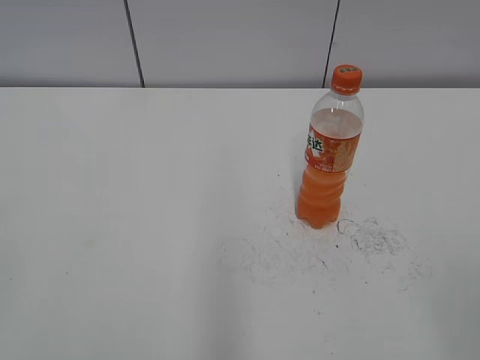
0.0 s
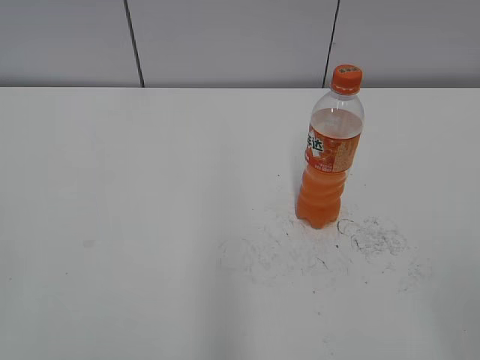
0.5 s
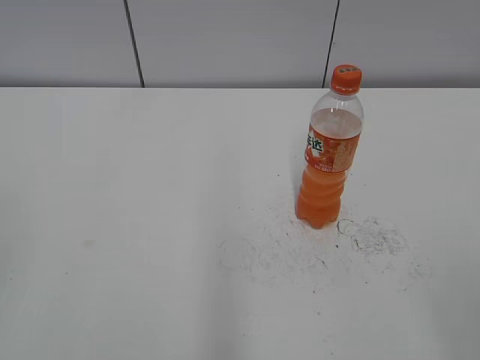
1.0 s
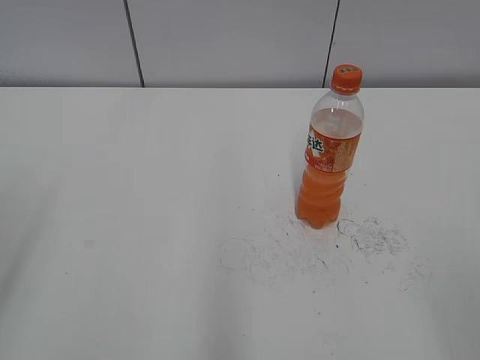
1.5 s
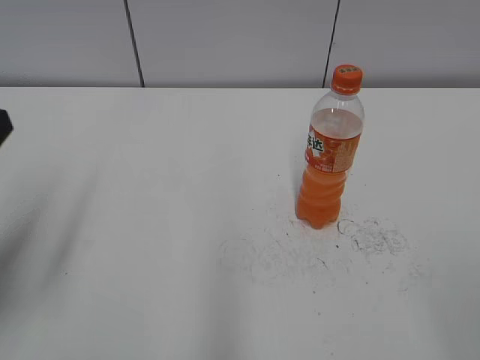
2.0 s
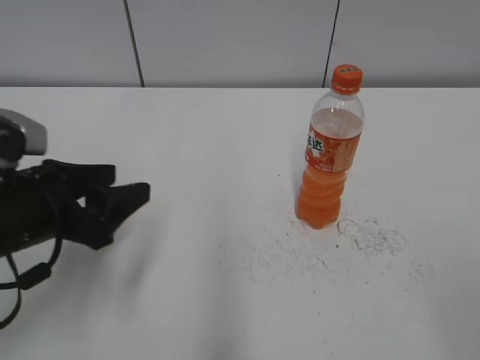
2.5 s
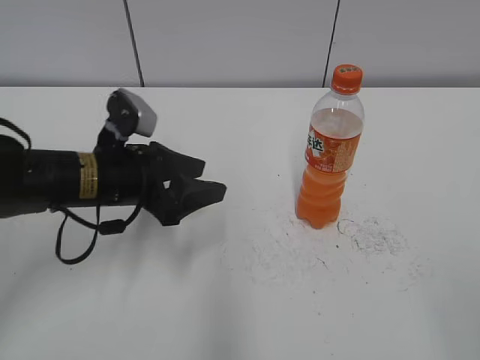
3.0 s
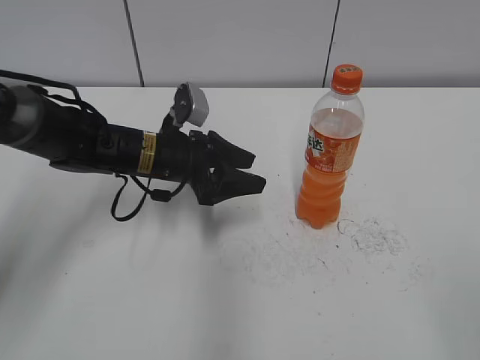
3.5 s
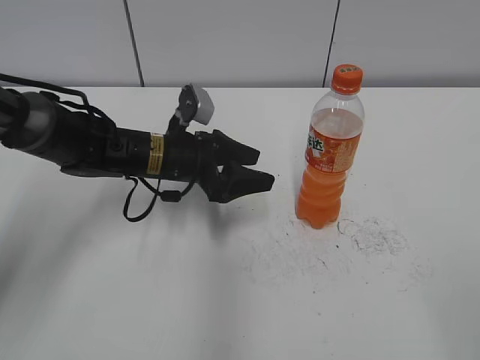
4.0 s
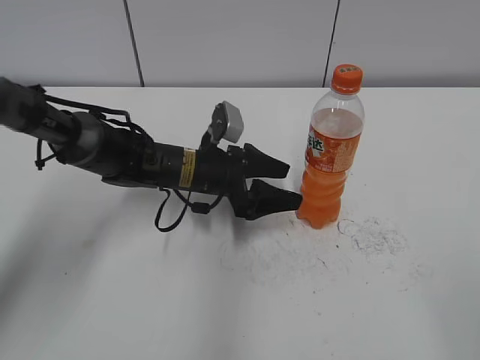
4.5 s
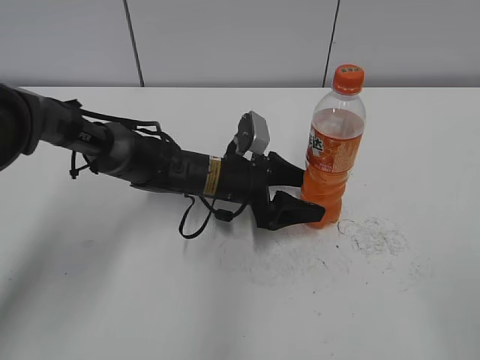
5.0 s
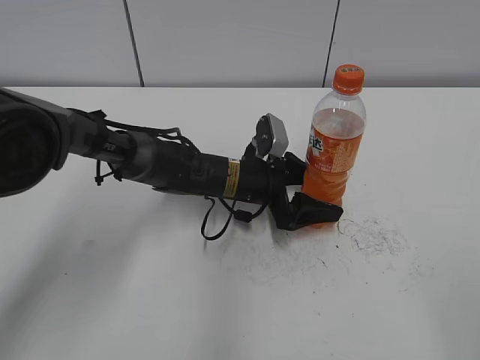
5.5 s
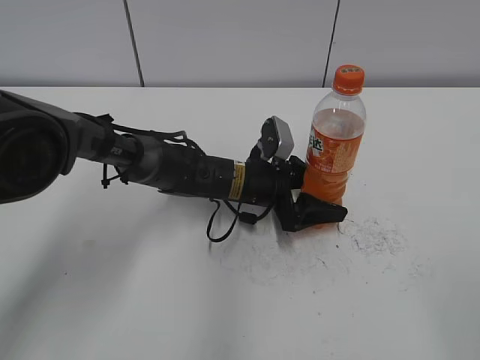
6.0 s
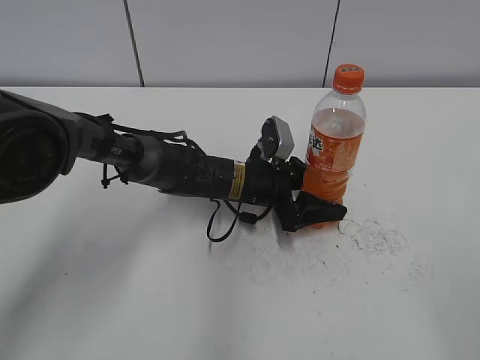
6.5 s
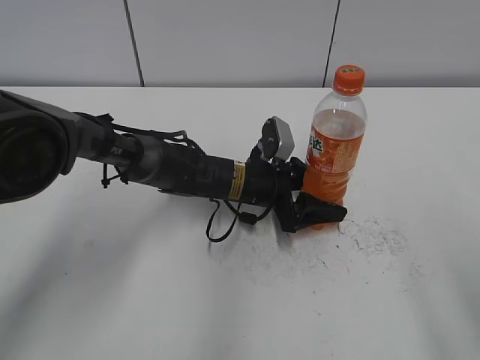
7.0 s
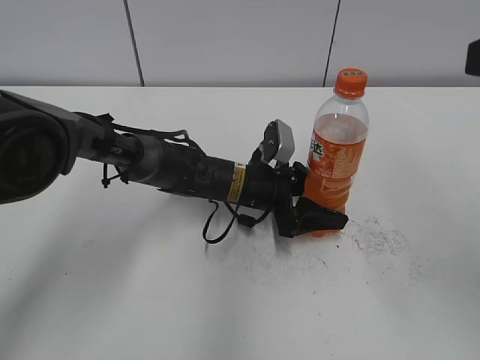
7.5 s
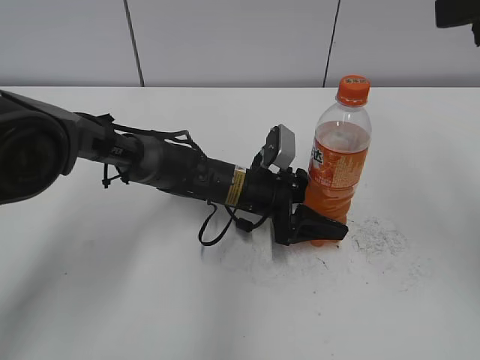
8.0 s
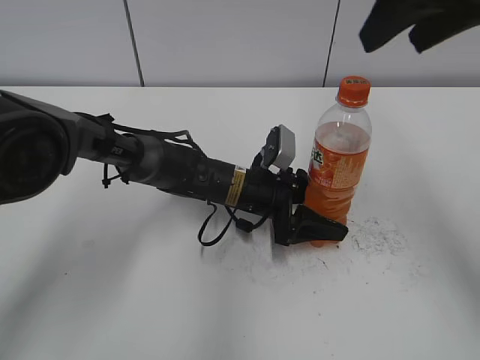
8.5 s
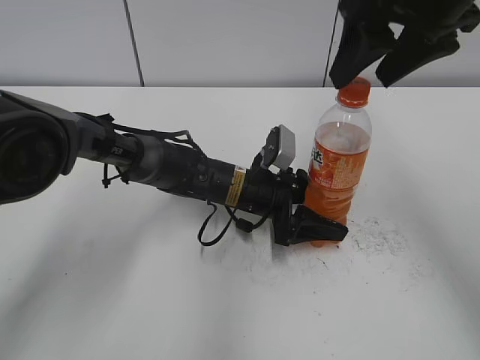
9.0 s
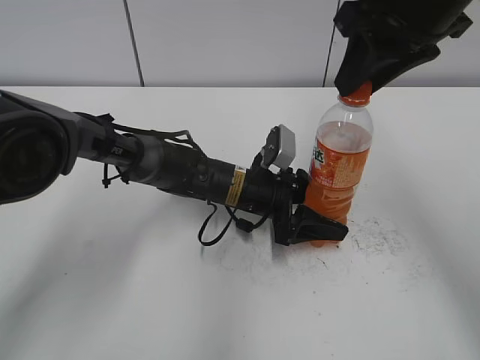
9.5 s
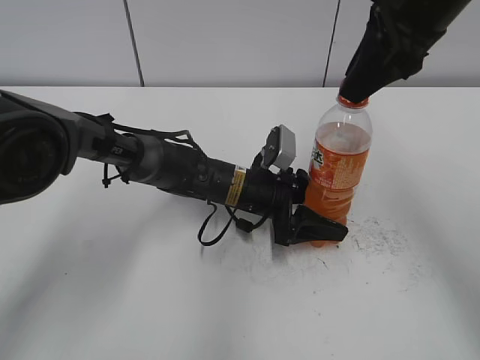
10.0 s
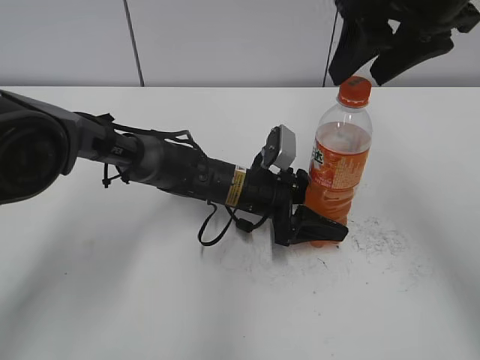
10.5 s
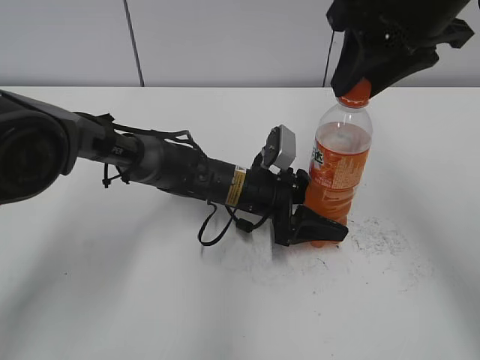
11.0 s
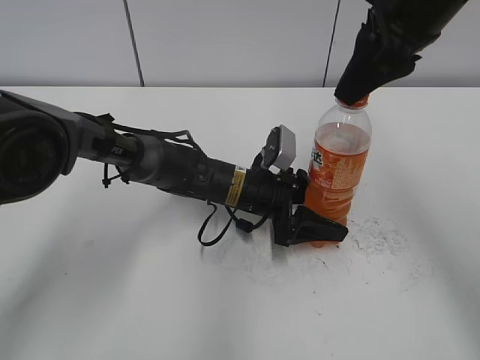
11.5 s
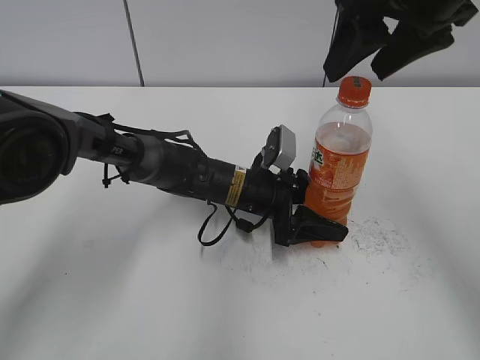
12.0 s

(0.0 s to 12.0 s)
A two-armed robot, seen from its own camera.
Step, 0.0 s - 6.0 s: Grab the Mirinda with the left hand.
2.0 s - 4.0 s: The left gripper moves forward, to the right and downward, some 30 cm.
4.0 s - 6.0 s: The left gripper moves to the right and downward, approximately 10 cm.
6.0 s - 8.0 s: The right gripper shifts some 25 cm forward and upward.
8.0 s - 10.0 s: The right gripper shifts roughly 15 cm to the left and forward, and closes.
10.0 s - 12.0 s: The right gripper opens its fingers.

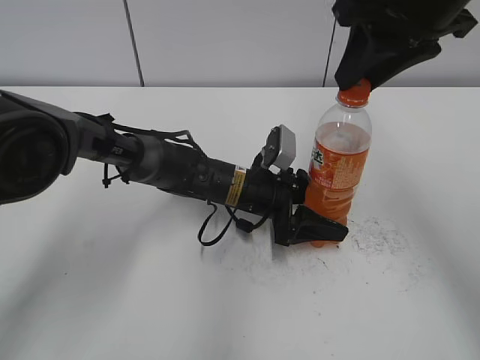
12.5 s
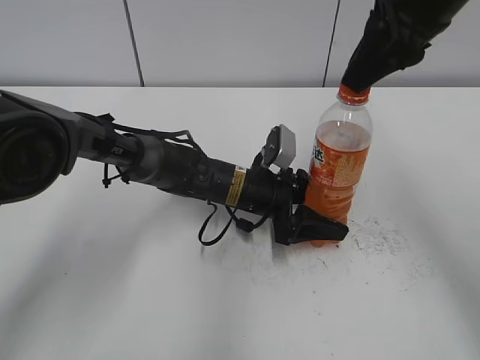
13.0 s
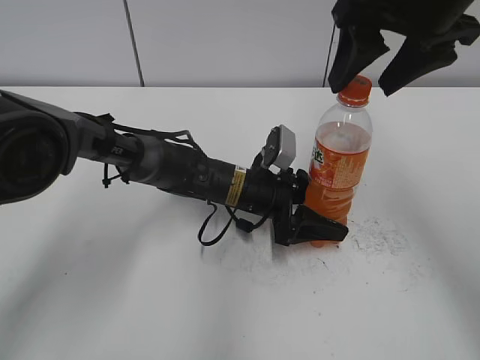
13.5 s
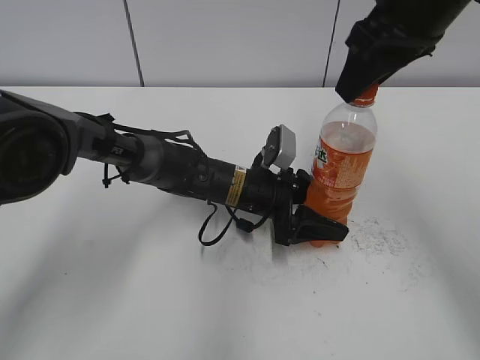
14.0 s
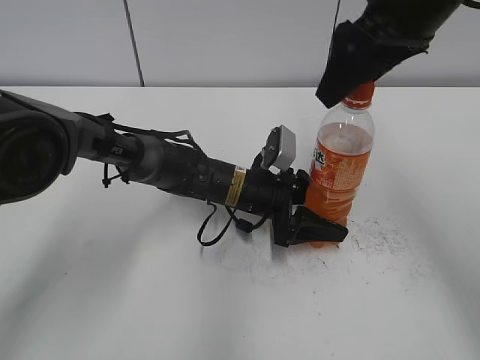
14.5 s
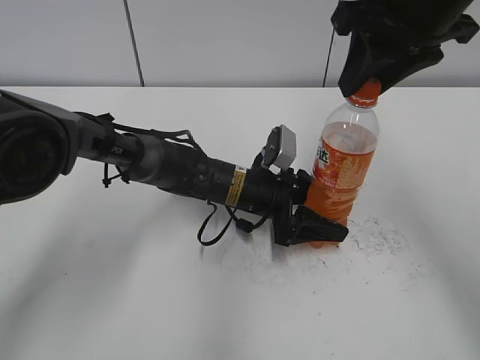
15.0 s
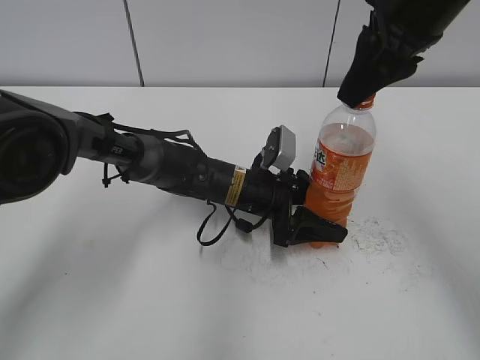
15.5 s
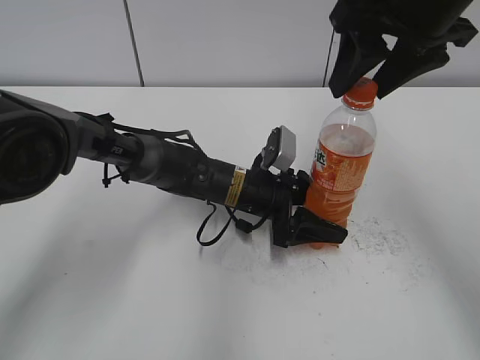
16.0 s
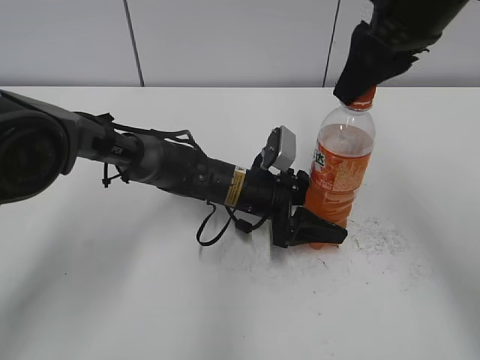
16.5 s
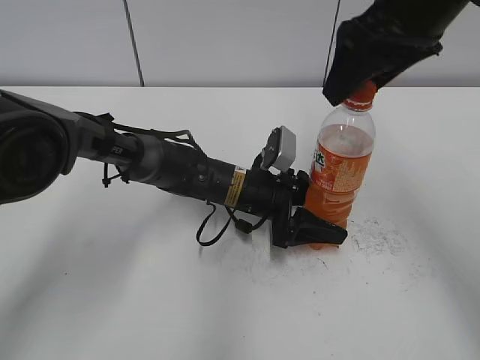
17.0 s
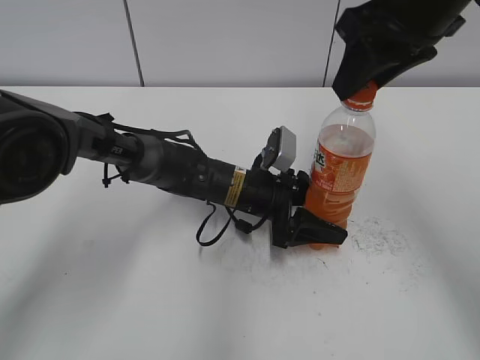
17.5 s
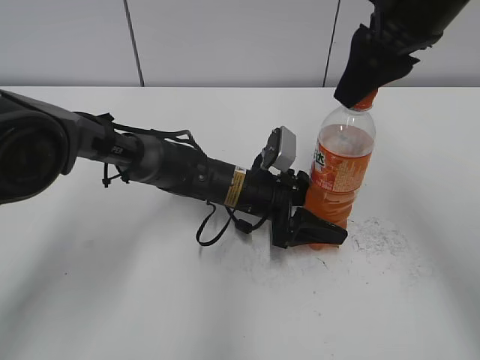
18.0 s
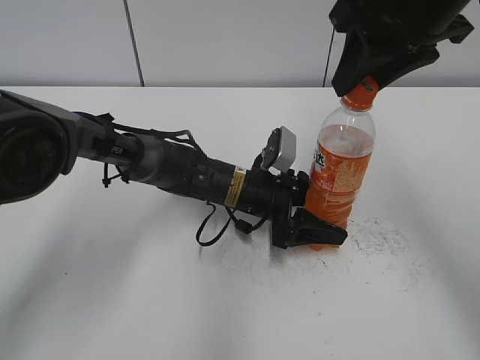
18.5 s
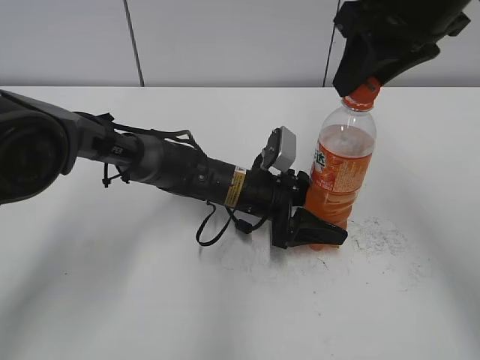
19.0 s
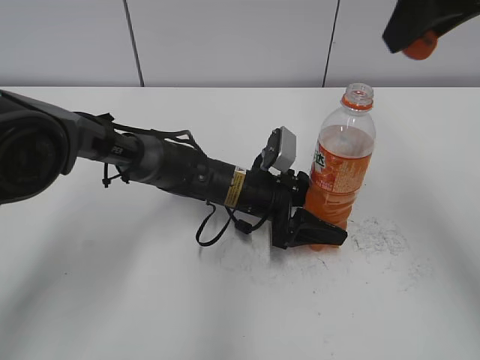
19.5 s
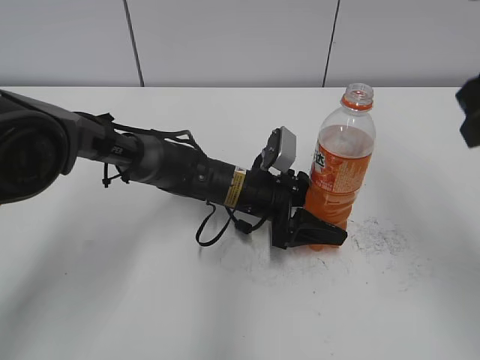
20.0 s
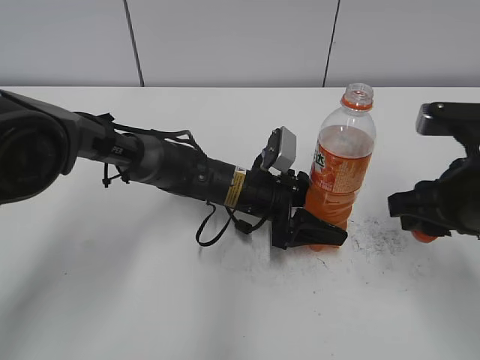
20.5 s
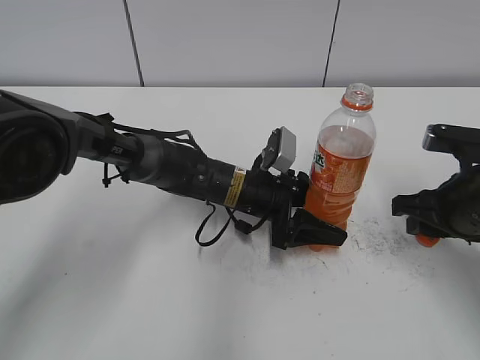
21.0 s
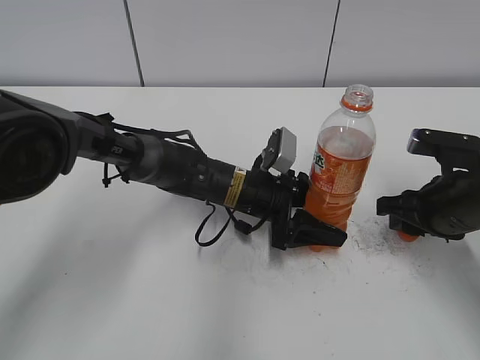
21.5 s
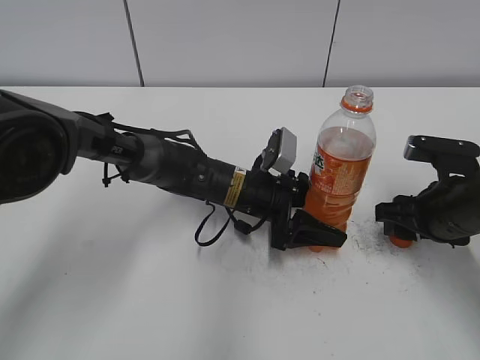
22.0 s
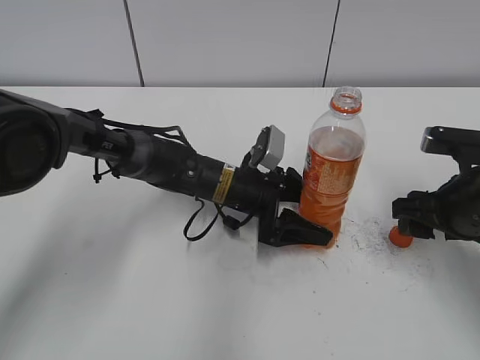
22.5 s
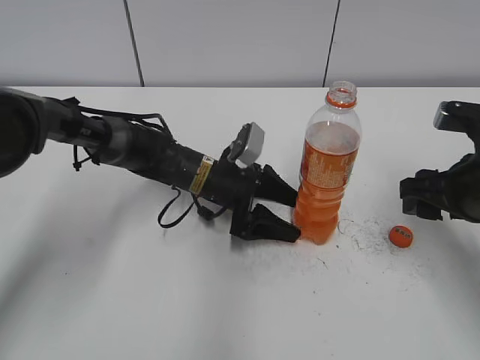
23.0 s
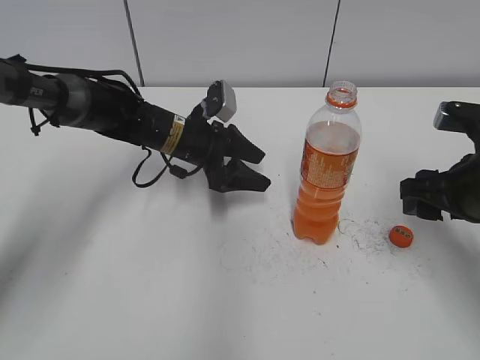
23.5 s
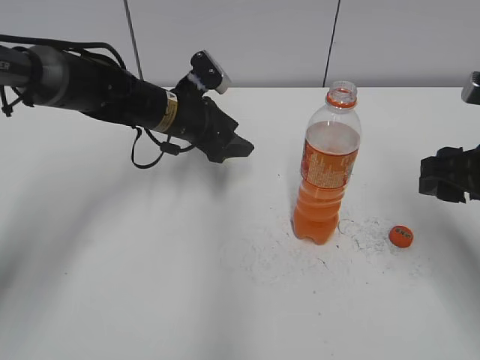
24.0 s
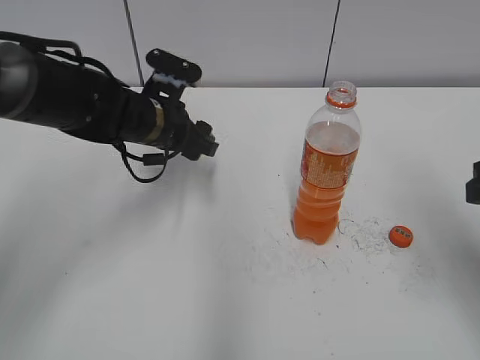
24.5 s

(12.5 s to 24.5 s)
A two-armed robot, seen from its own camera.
Step, 19.5 s - 21.5 s: Place the bottle cap on the table with the right hand.
12.5 s - 14.5 s: The right gripper opens its fingers.
14.5 s - 16.5 s: The right gripper closes up.
16.5 s - 18.5 s: The right gripper opens and closes again.
18.5 s - 20.5 s: The right gripper shifts roughly 20 cm downward, backward and to the right.
20.5 s - 22.5 s: The left gripper opens up, while the right gripper travels downward by approximately 5 cm, and opens its fingers.
22.5 s - 24.5 s: The right gripper moves upward and backward, some 10 cm. The left gripper heads to the left and upward, covering roughly 15 cm, and closes its fingers.

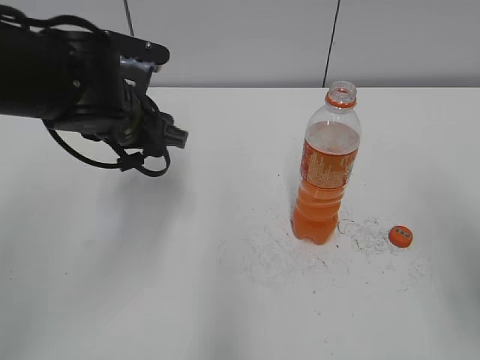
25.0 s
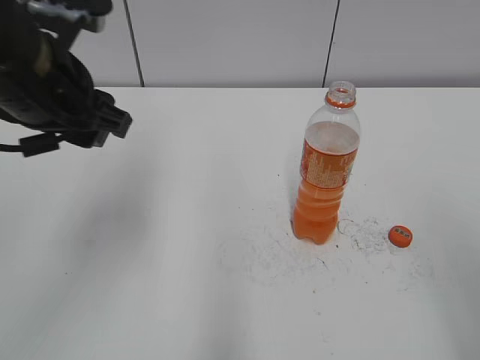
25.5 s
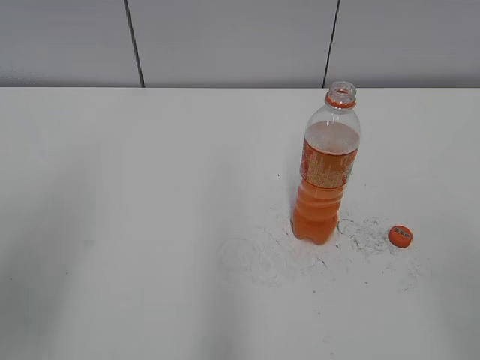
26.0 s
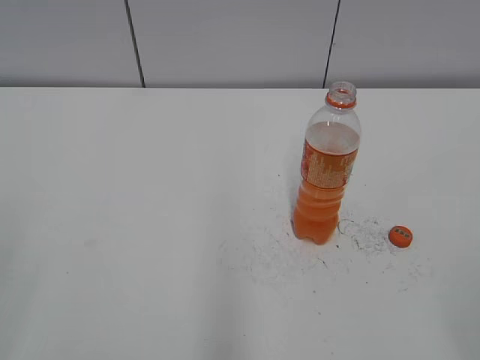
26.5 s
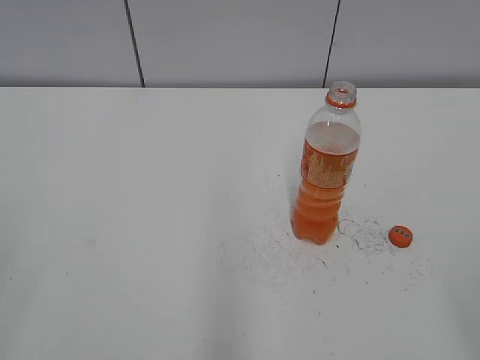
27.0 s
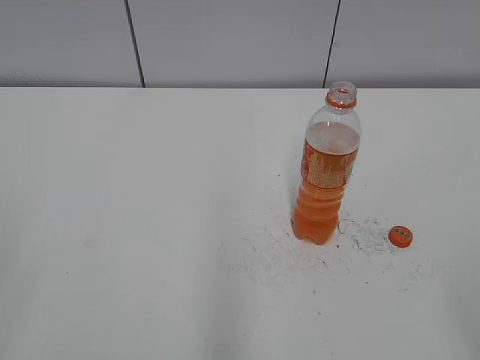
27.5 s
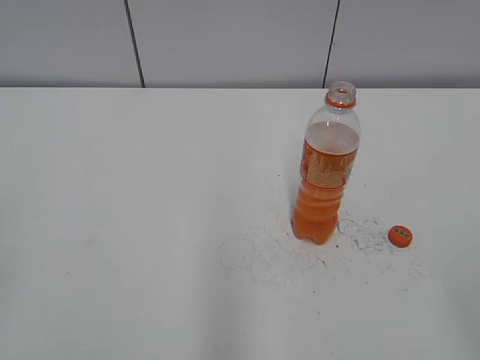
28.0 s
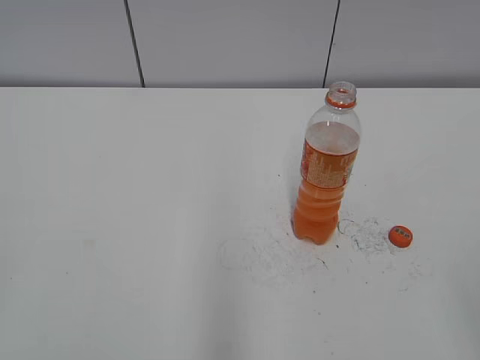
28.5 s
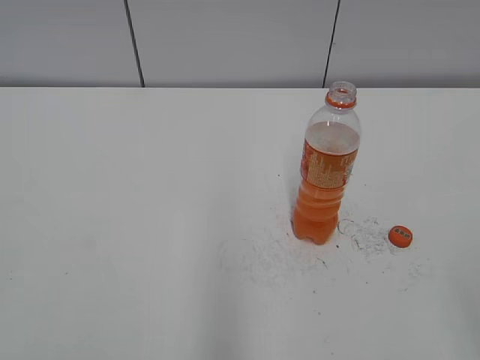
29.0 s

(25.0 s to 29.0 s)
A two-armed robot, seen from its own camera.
25.0 s - 27.0 s: The left gripper shifts some 35 cm backward and to the left. The right gripper goes some 15 cm backward.
